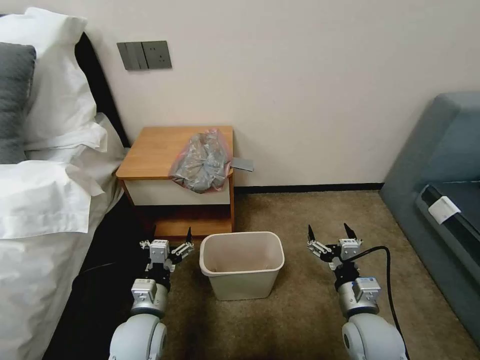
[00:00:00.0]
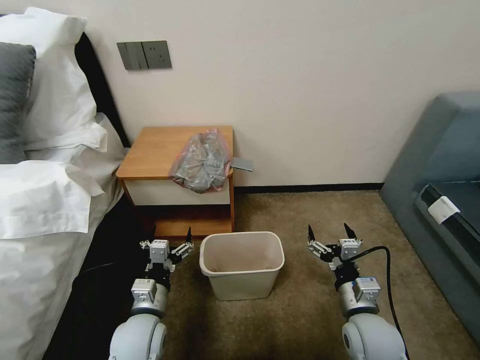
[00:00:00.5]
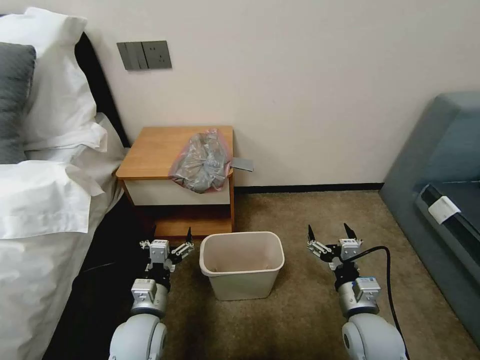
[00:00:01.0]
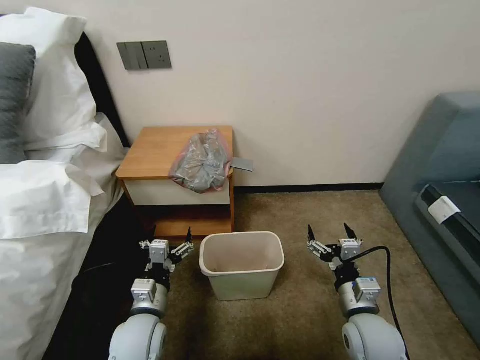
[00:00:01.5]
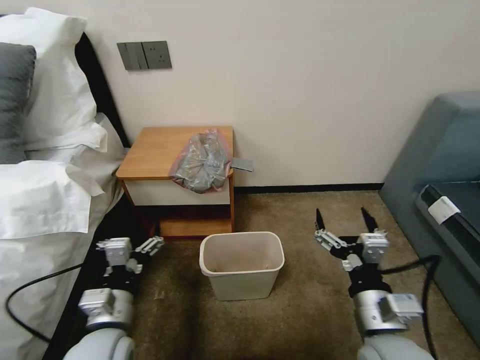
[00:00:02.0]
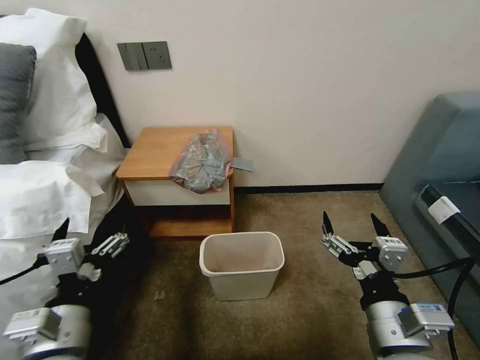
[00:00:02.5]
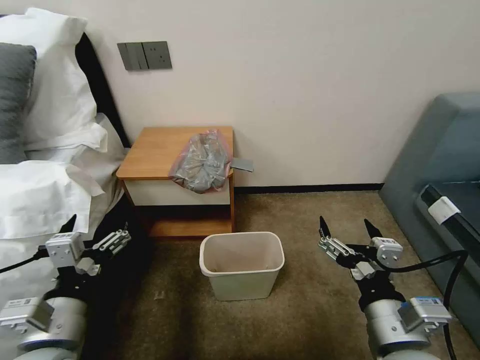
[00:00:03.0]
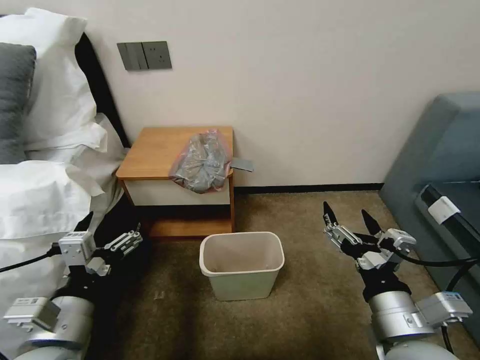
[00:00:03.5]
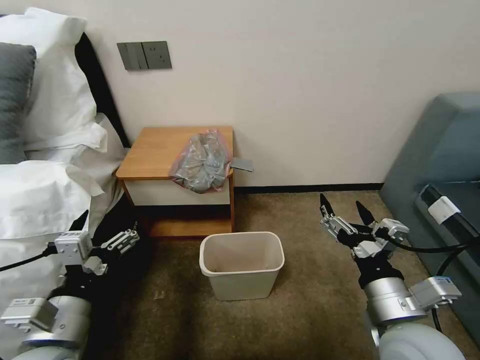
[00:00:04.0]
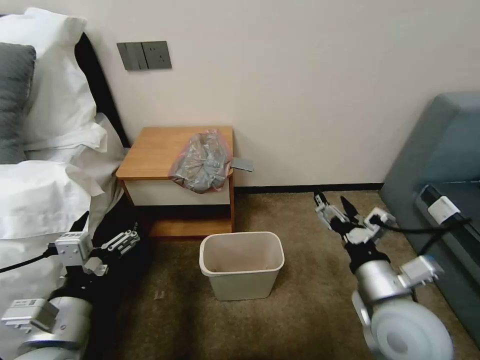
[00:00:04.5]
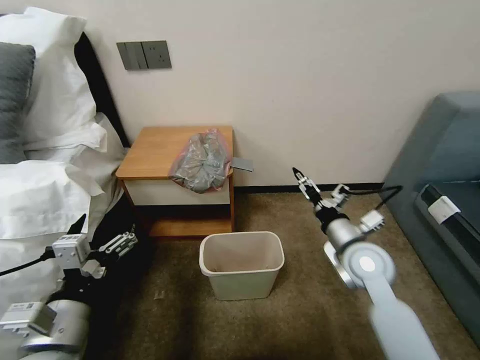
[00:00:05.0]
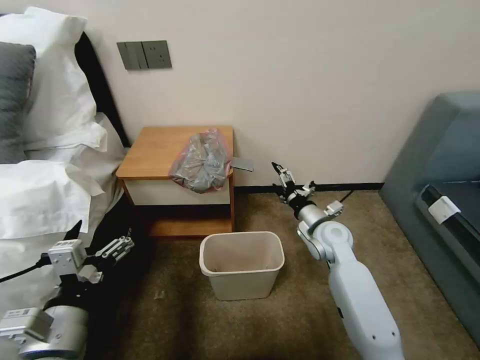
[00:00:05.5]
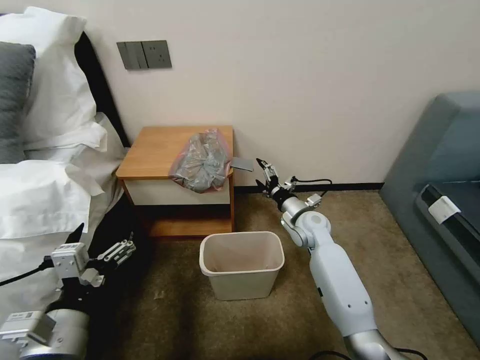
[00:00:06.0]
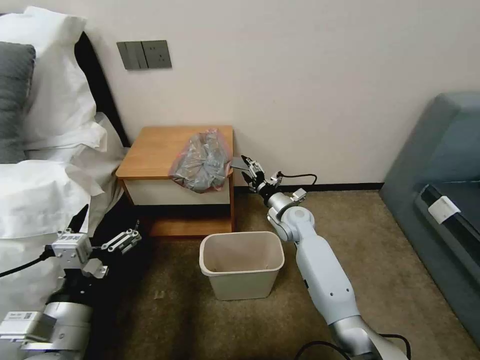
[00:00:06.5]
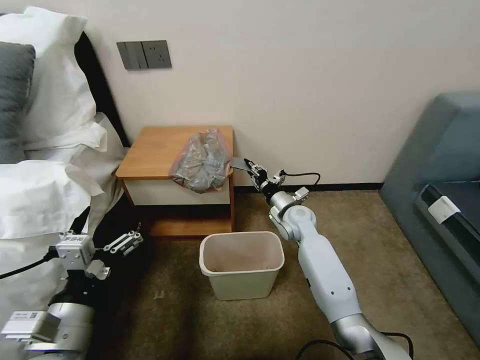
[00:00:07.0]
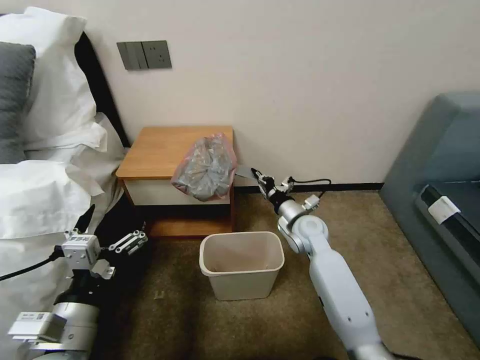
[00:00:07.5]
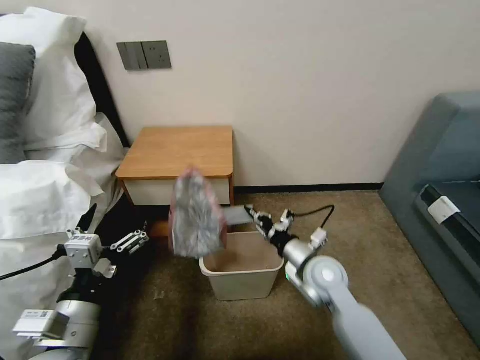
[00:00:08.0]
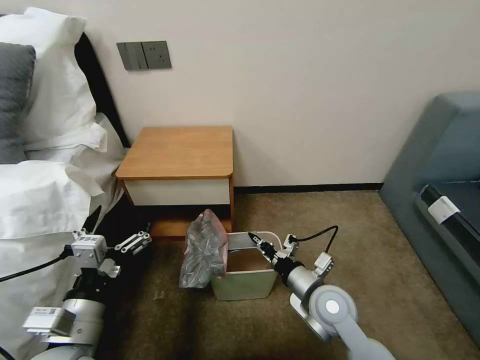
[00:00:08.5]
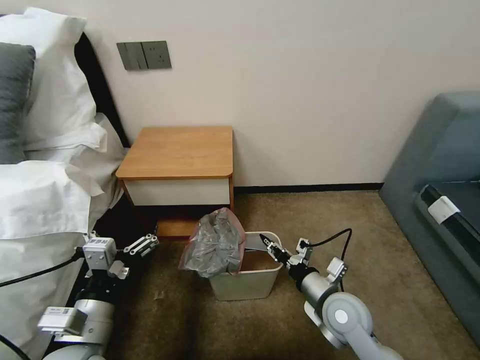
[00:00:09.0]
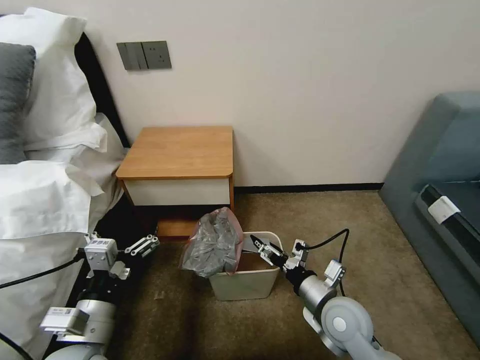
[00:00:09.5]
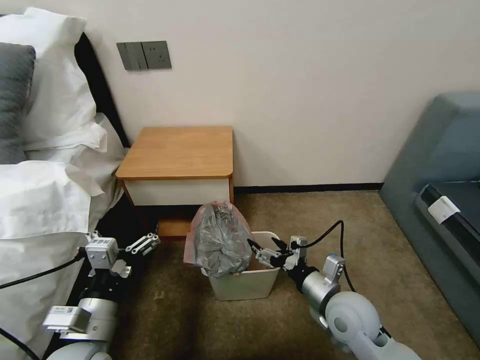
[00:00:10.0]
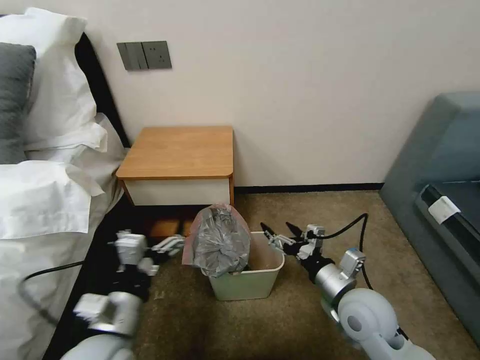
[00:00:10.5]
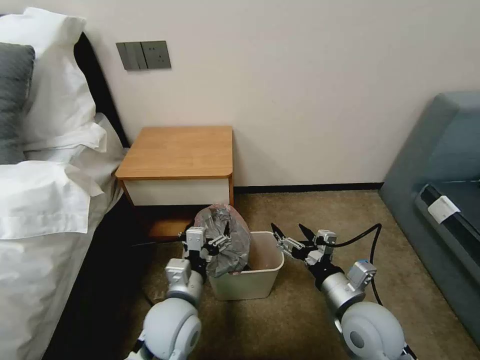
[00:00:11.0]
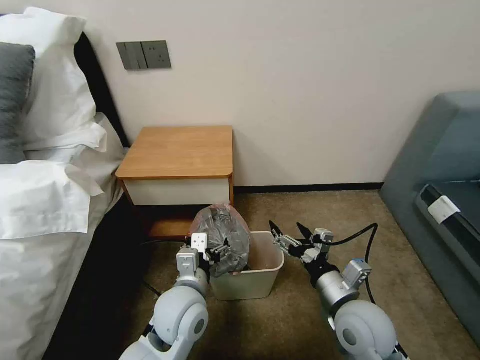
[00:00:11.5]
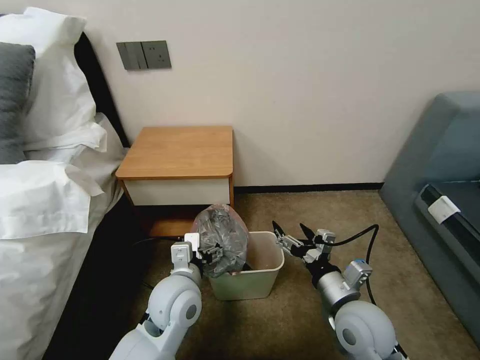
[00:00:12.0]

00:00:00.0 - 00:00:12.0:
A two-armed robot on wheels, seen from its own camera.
Task of the whole recording: Pick up the garbage bag from the table and place it over the trash can.
00:00:02.0 - 00:00:04.0: The left gripper travels upward by approximately 10 cm.
00:00:04.0 - 00:00:06.0: The right gripper is displaced forward and downward by some 35 cm.
00:00:06.0 - 00:00:08.0: The right gripper shifts approximately 15 cm backward, and closes its fingers.
00:00:08.0 - 00:00:10.0: The right gripper is displaced backward by roughly 10 cm, and opens.
00:00:10.0 - 00:00:12.0: The left gripper travels to the right and forward by about 15 cm.

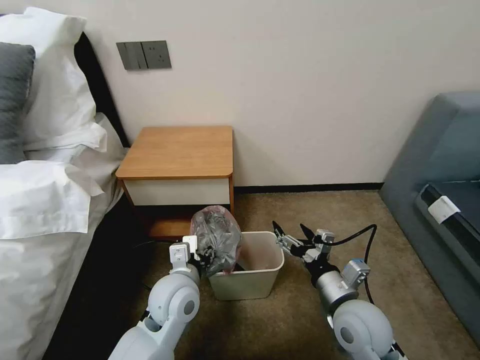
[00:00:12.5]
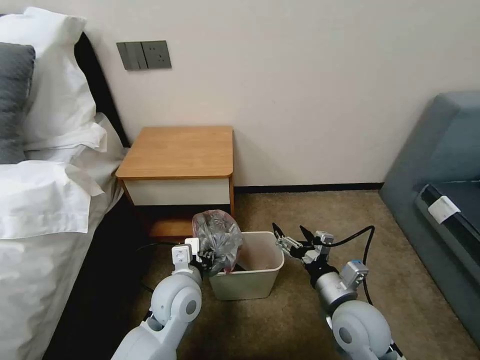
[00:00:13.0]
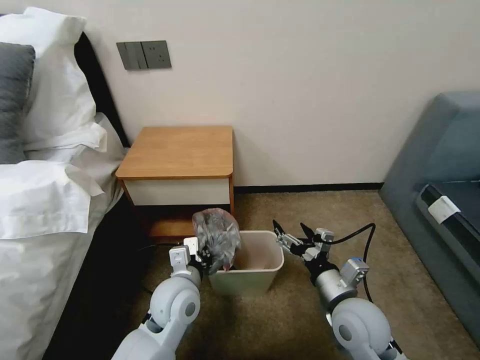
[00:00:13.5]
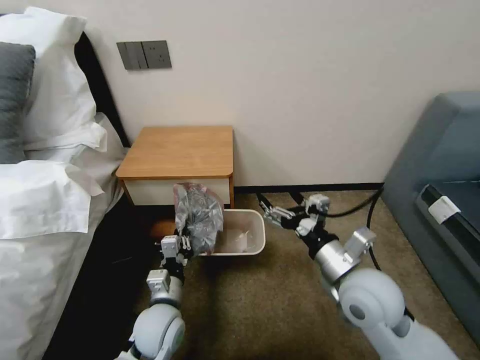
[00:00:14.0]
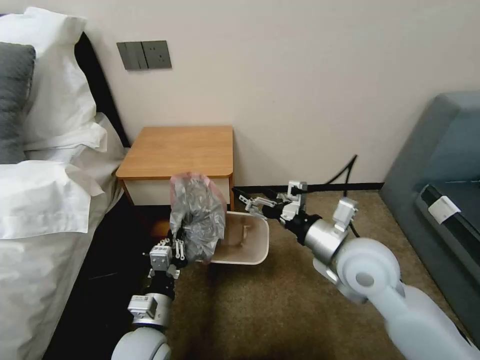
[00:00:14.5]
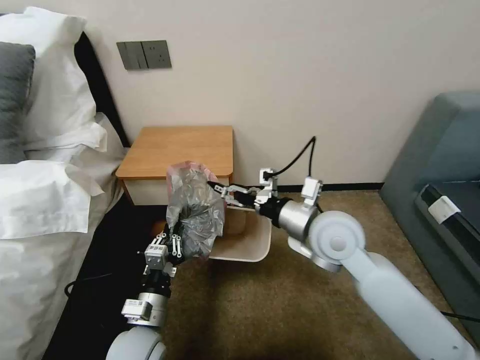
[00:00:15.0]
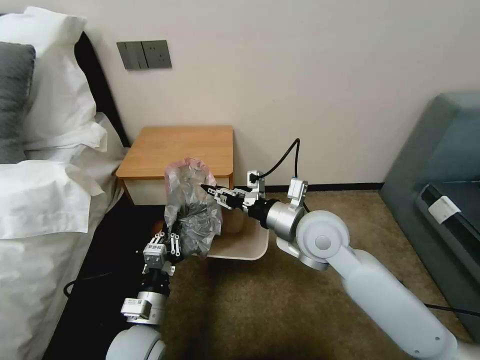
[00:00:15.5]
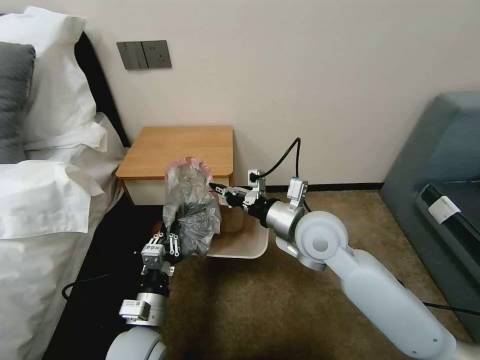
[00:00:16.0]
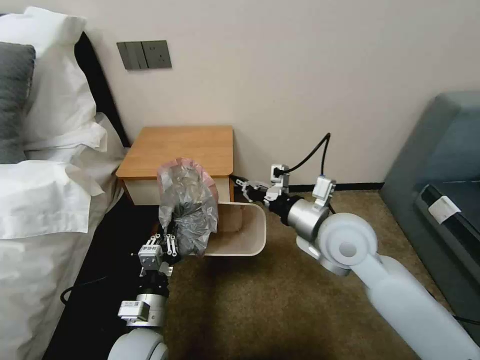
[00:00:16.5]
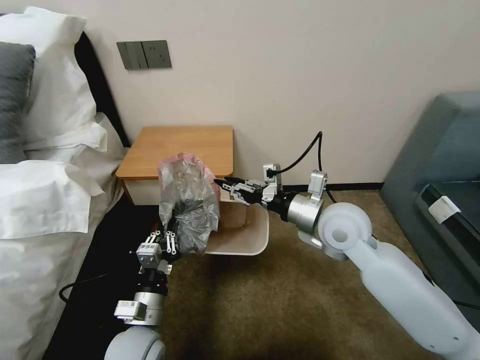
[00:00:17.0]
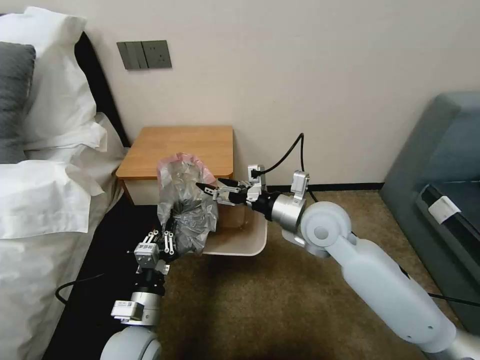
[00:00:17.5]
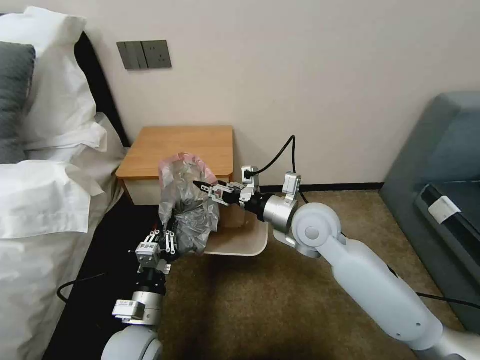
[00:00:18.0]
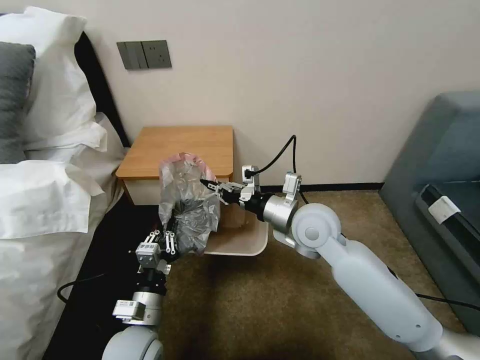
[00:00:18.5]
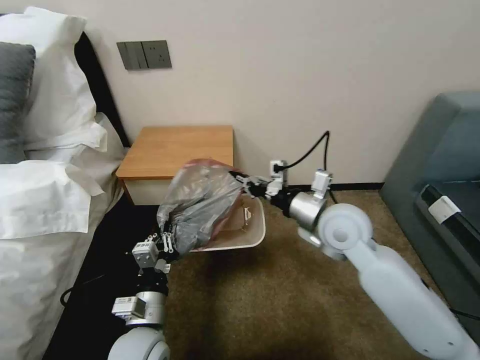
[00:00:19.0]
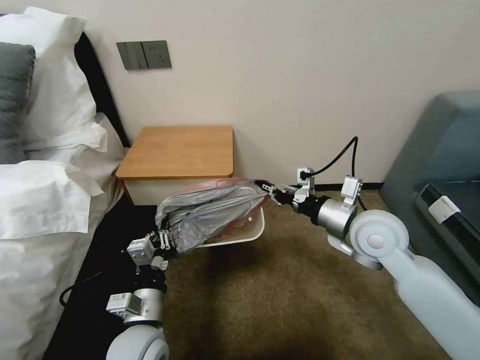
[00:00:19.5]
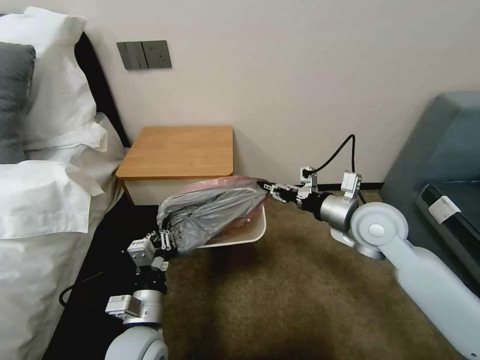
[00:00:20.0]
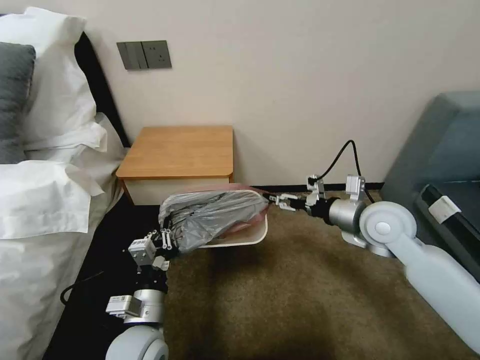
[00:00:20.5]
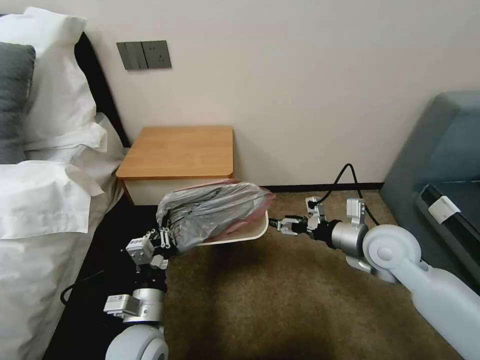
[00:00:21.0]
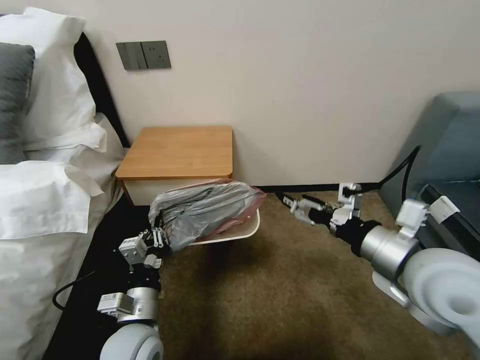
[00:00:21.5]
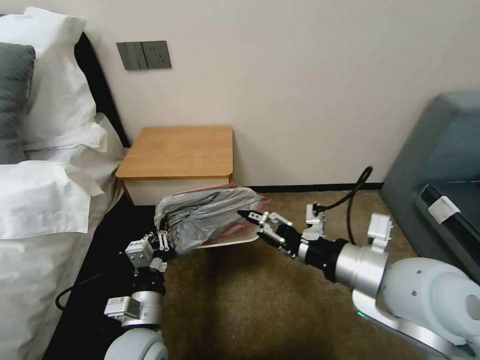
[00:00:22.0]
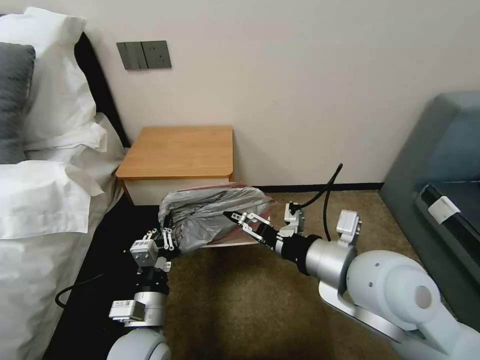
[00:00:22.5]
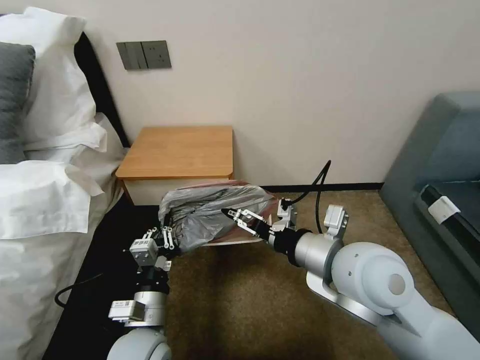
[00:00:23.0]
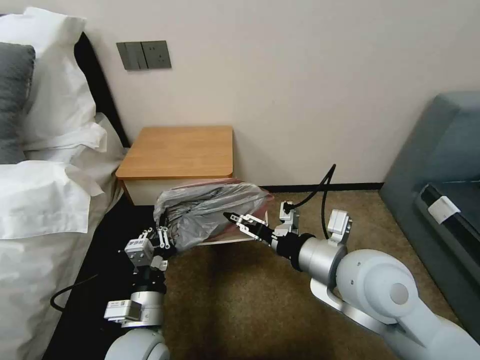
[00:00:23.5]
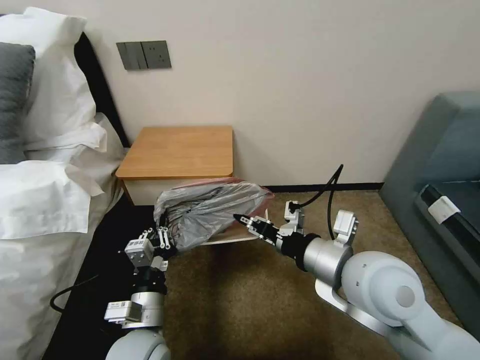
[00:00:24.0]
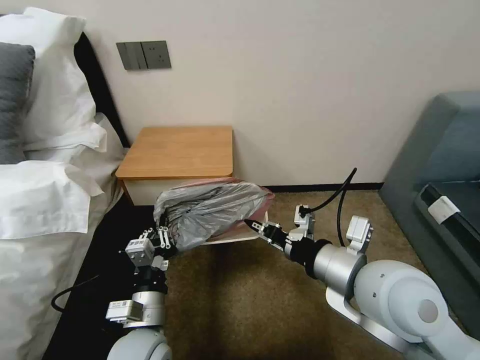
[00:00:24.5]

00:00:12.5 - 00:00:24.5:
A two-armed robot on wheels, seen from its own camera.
Task of the whole recording: Pick up the garbage bag from the table and place it over the trash can.
00:00:12.5 - 00:00:14.5: The left gripper travels backward, downward and to the left by some 10 cm, and closes its fingers; the right gripper moves upward and forward, about 15 cm.
00:00:14.5 - 00:00:16.5: The right gripper closes its fingers.
00:00:16.5 - 00:00:18.5: The right gripper ends up roughly 5 cm from where it was, and opens, then closes again.
00:00:18.5 - 00:00:20.5: The right gripper shifts some 15 cm to the right, and opens its fingers.
00:00:20.5 - 00:00:22.5: The right gripper shifts roughly 20 cm backward, to the left and upward.
00:00:22.5 - 00:00:24.5: The right gripper closes.

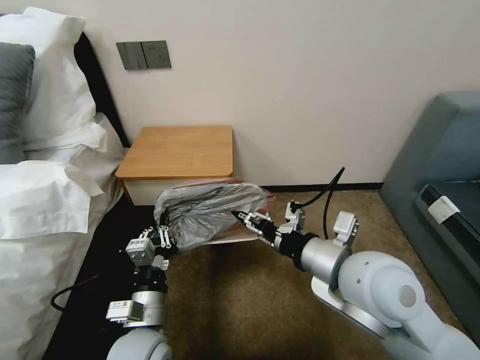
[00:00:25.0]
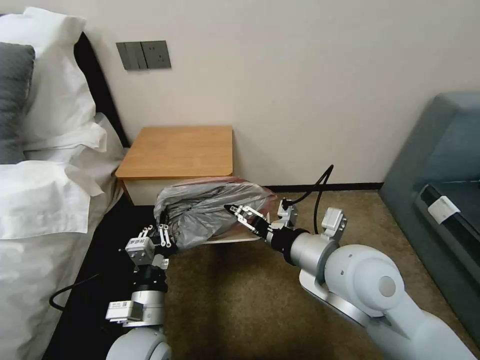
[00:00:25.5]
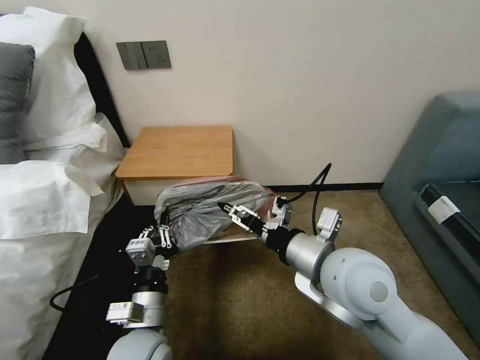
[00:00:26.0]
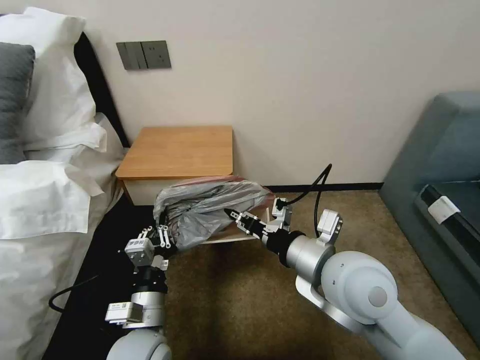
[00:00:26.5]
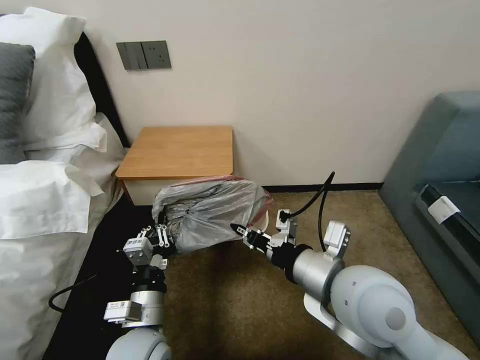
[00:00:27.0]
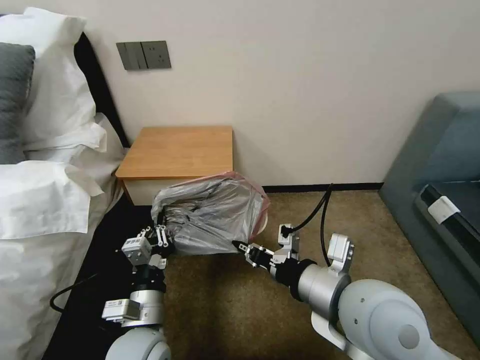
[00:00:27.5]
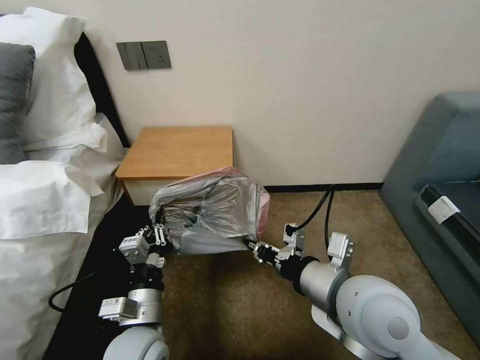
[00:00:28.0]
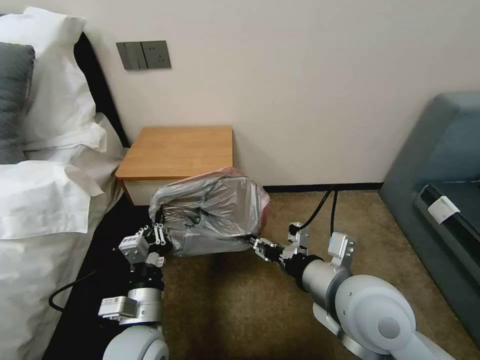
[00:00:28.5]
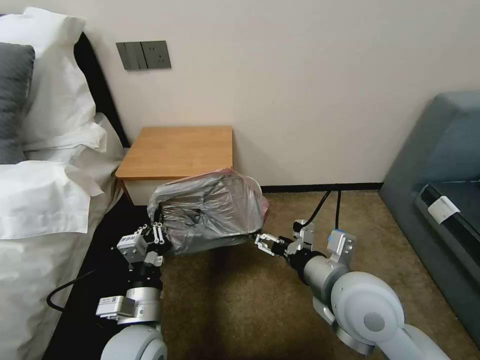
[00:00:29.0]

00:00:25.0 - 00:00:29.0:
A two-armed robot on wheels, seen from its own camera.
Task of the whole recording: Pick up the garbage bag from the table and place it over the trash can.
00:00:25.0 - 00:00:27.0: The right gripper closes.
00:00:27.0 - 00:00:29.0: The right gripper opens its fingers.
